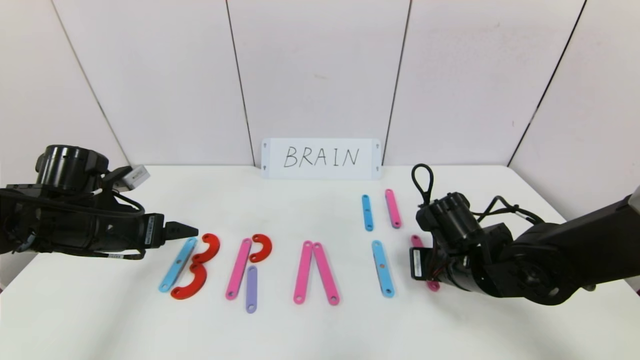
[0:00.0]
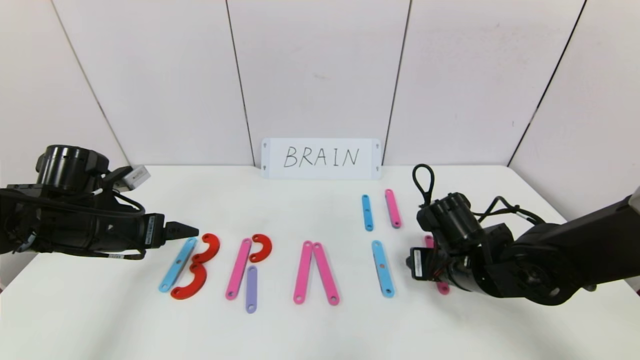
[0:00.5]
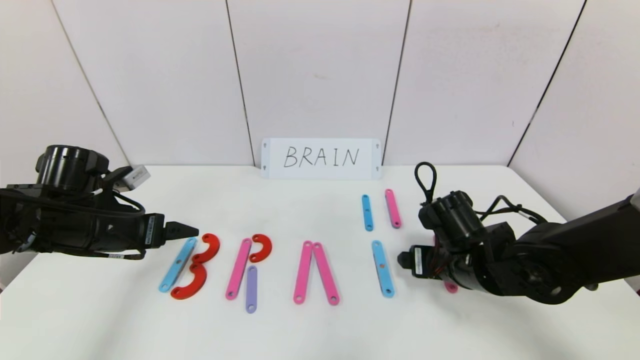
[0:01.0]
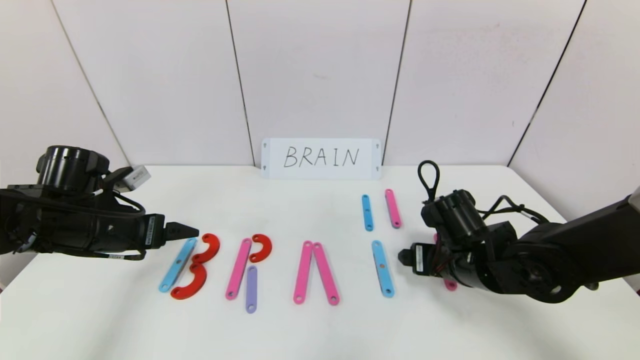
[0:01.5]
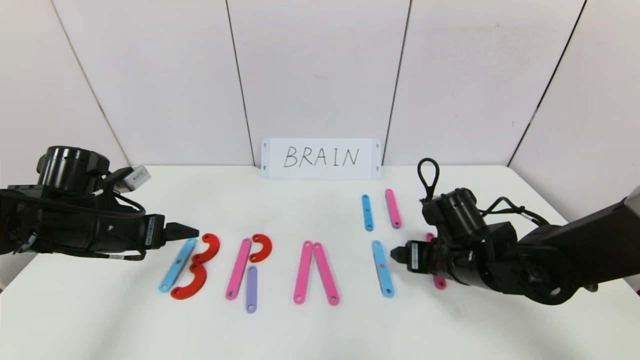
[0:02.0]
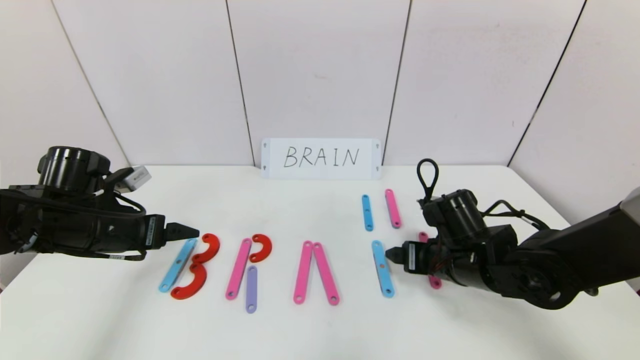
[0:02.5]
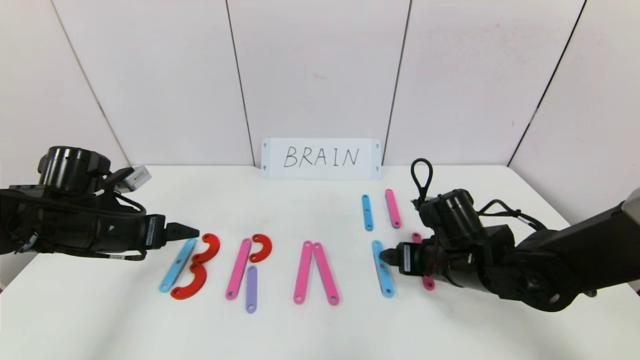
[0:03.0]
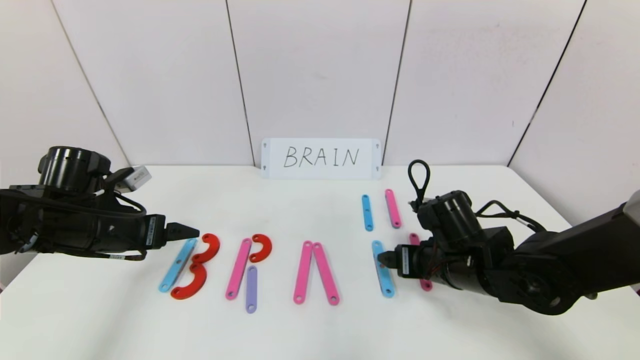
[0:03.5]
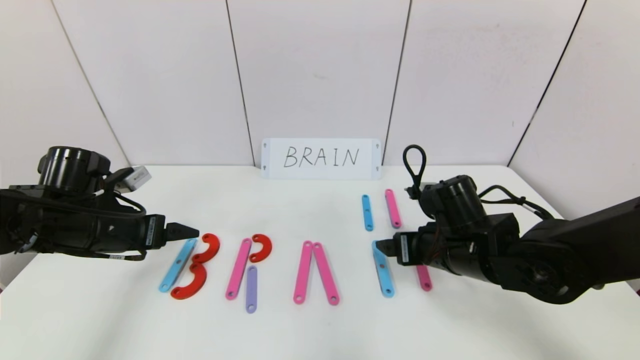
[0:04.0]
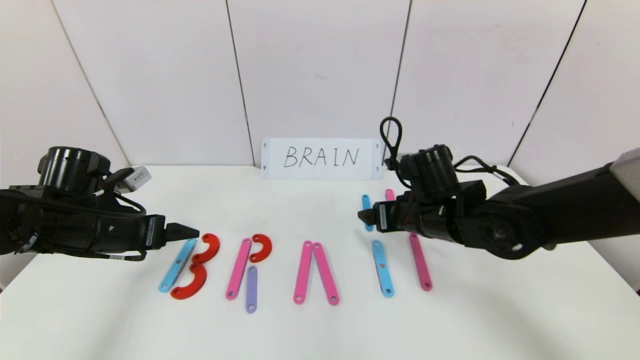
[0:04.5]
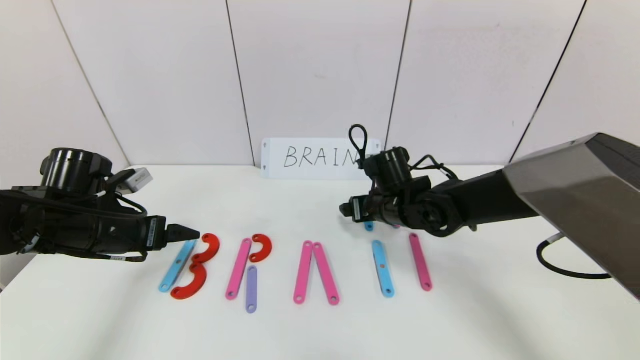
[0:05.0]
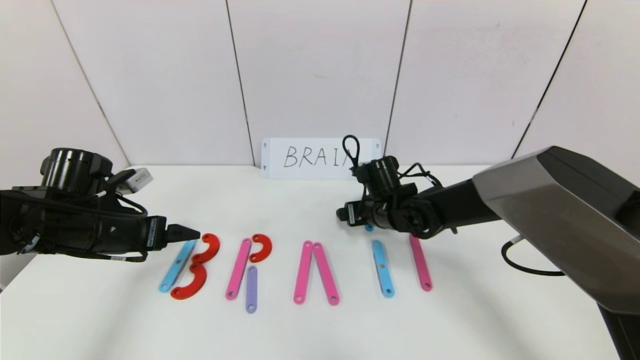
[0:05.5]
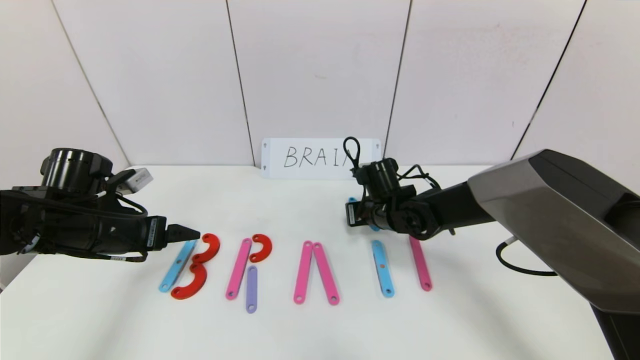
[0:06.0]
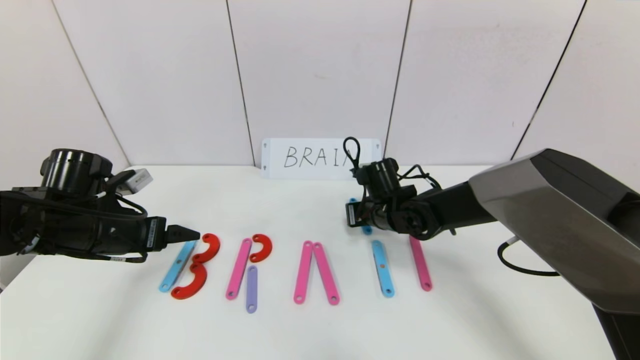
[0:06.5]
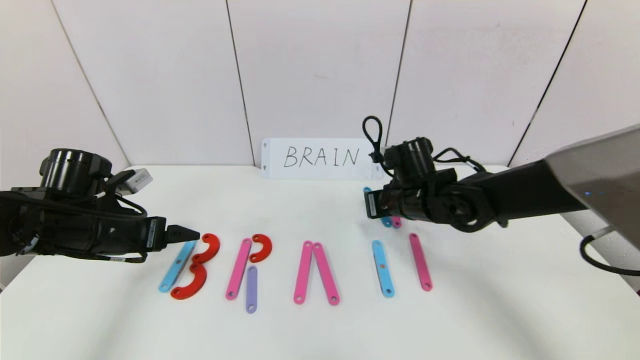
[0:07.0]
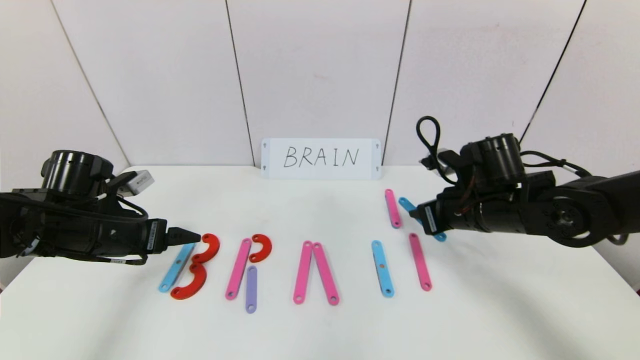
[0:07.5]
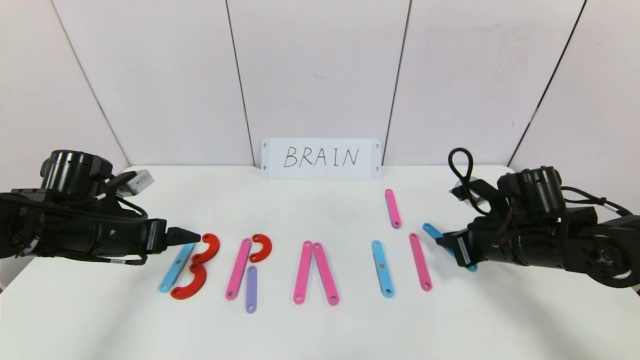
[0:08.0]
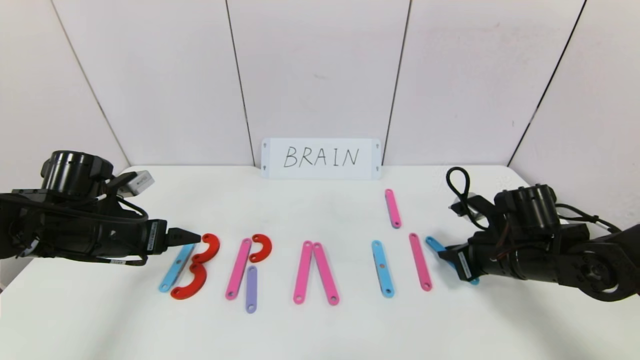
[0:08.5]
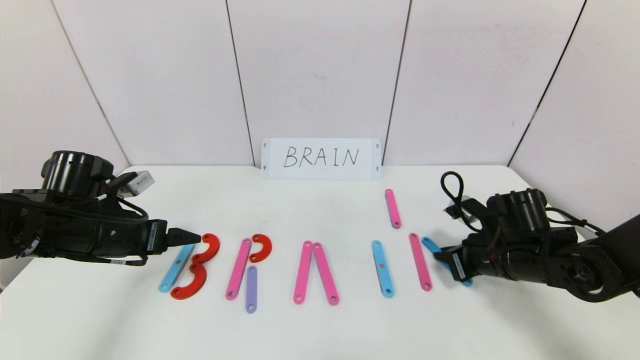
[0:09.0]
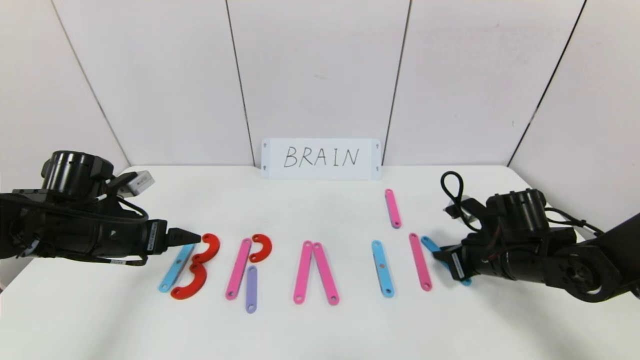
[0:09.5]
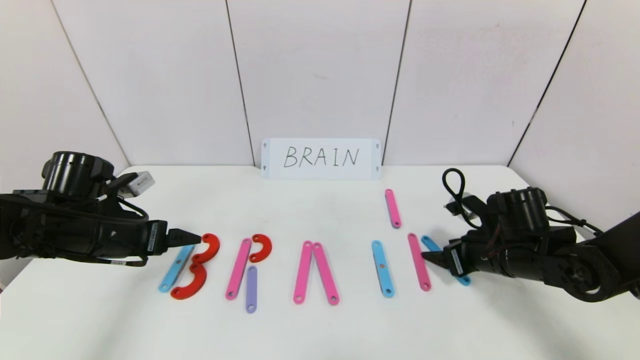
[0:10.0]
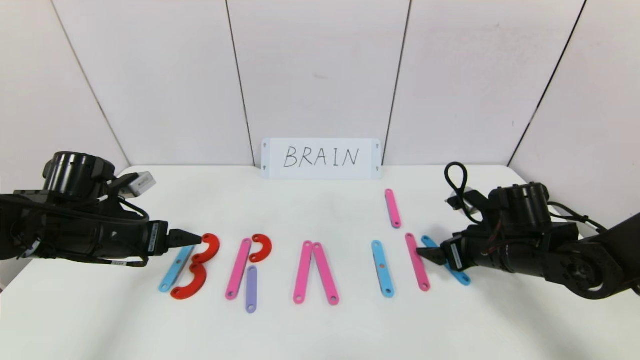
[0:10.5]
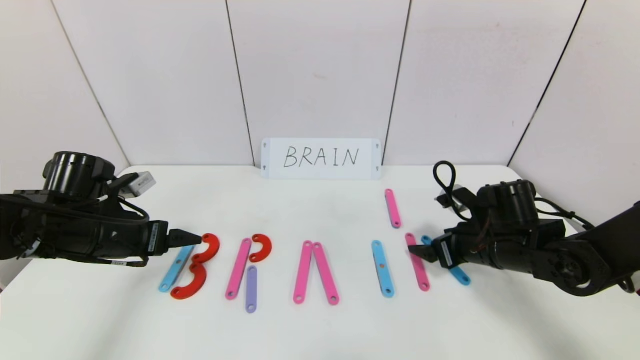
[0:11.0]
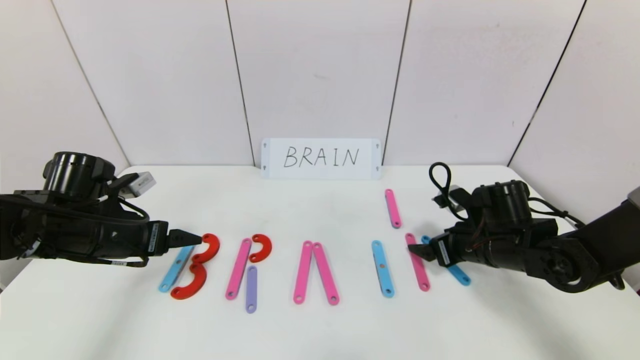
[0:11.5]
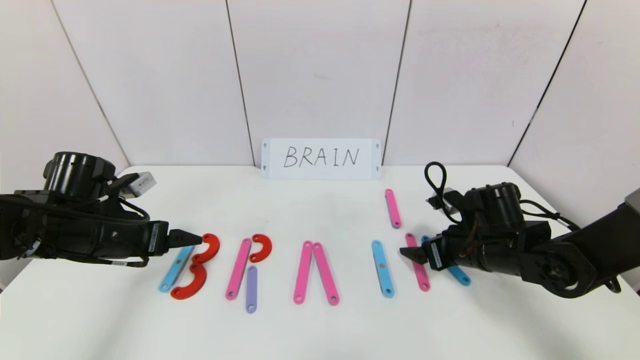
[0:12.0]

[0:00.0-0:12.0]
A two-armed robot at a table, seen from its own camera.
Task of the whole recording: rearrange the word baai as brain.
0.0 to 2.0 s: The right gripper opens.
2.0 to 4.0 s: The grippers stay close to where they were, moving slightly.
4.0 to 6.0 s: The right gripper heads forward and to the left, covering roughly 15 cm, and closes.
6.0 to 8.0 s: The right gripper goes approximately 20 cm to the right and backward.
8.0 to 10.0 s: The right gripper opens.
10.0 to 12.0 s: The grippers make only small movements.

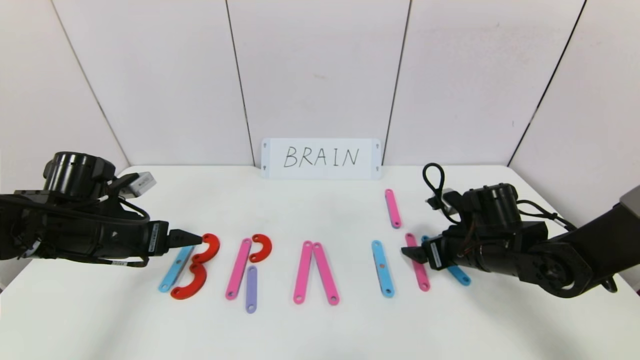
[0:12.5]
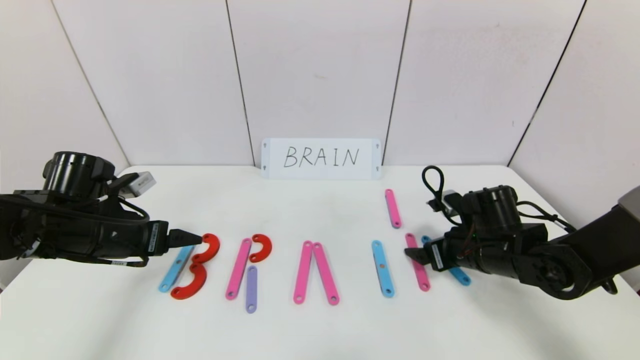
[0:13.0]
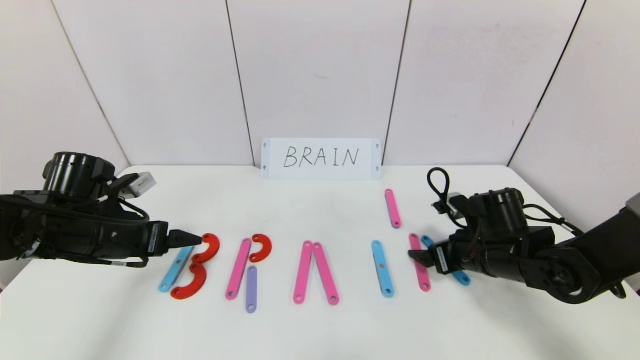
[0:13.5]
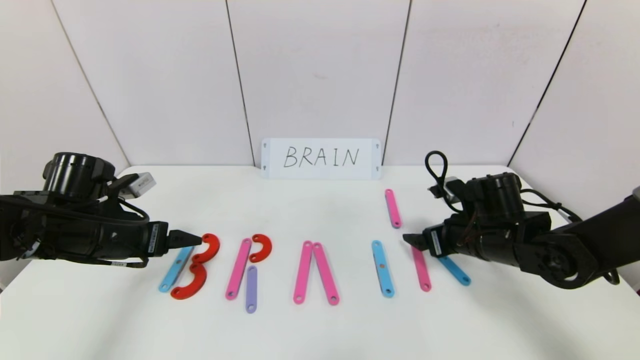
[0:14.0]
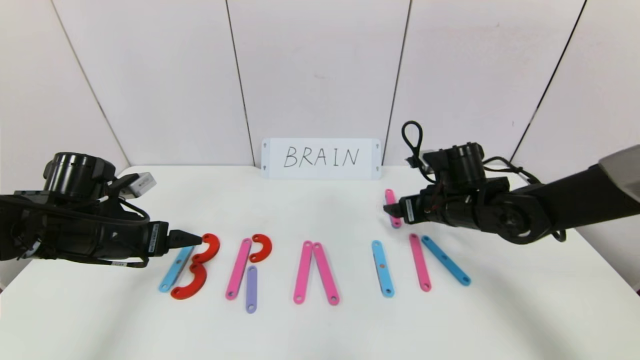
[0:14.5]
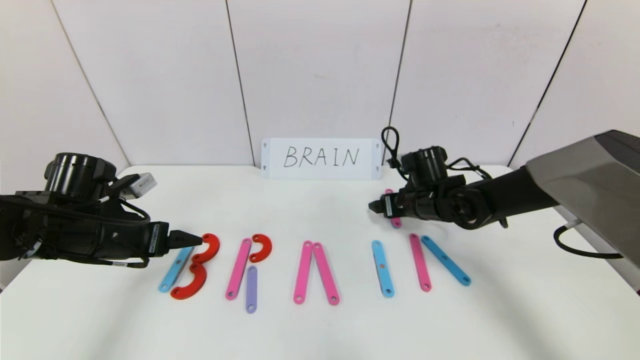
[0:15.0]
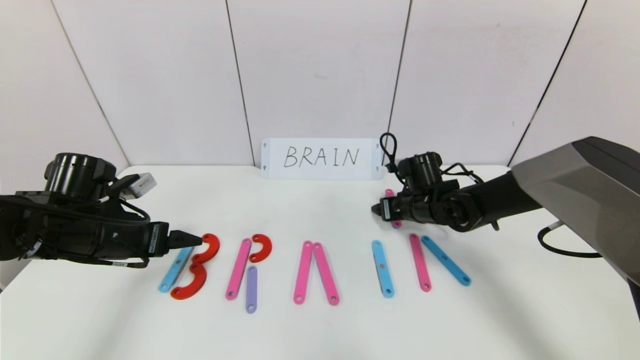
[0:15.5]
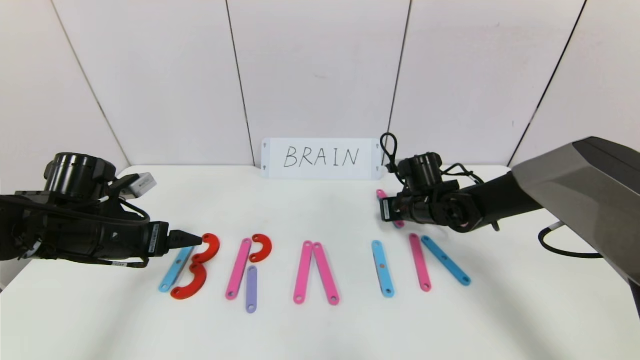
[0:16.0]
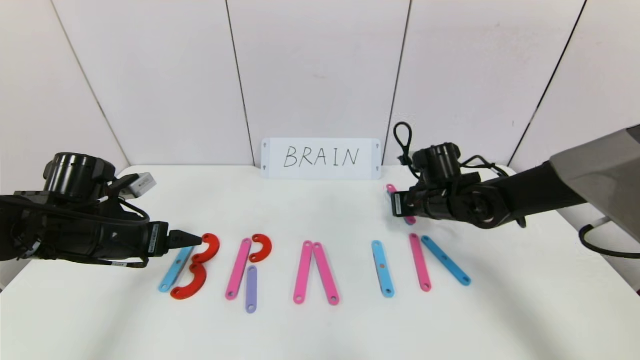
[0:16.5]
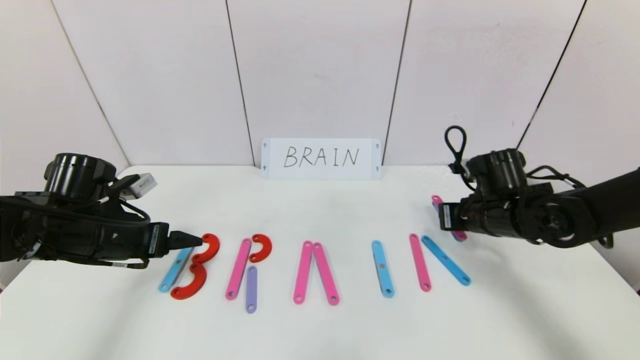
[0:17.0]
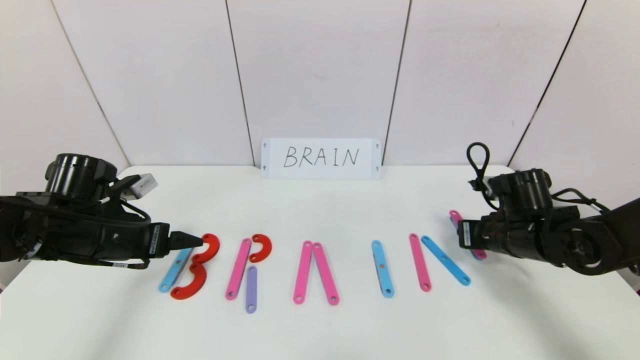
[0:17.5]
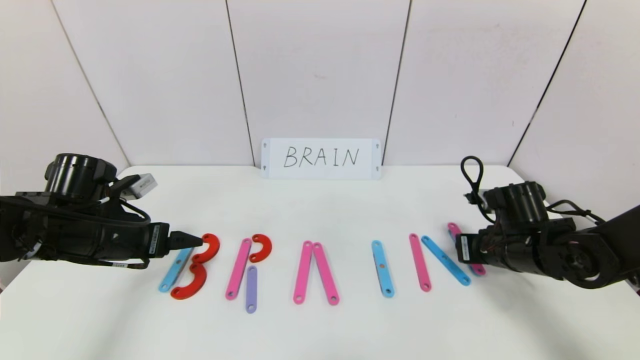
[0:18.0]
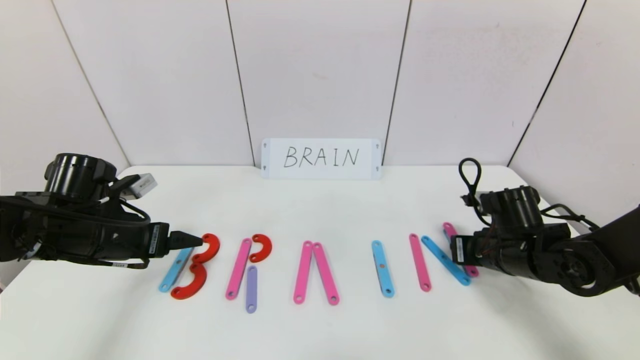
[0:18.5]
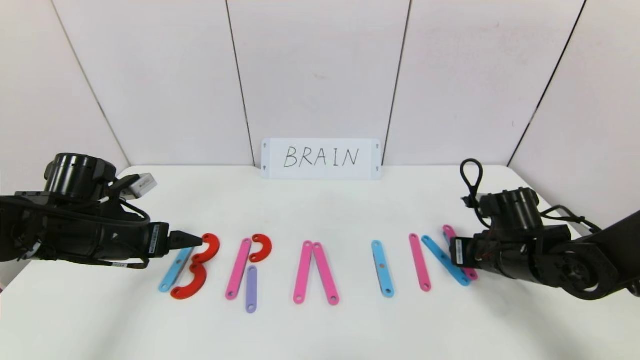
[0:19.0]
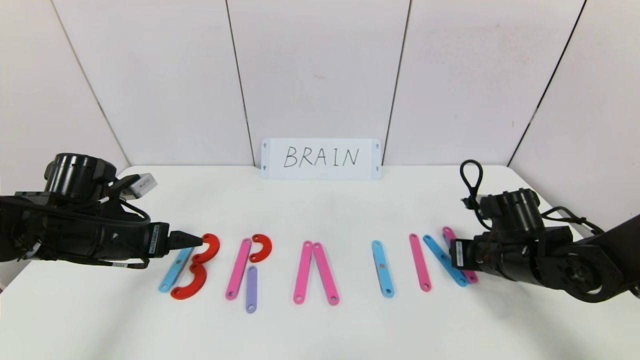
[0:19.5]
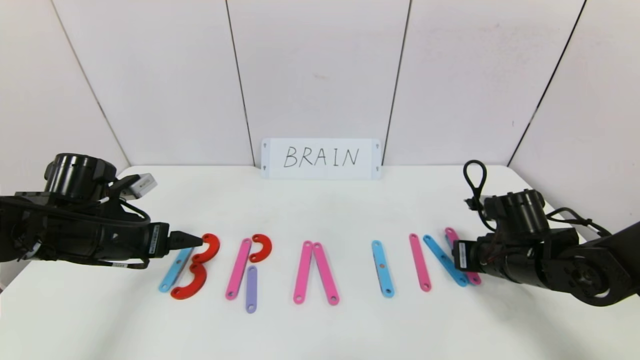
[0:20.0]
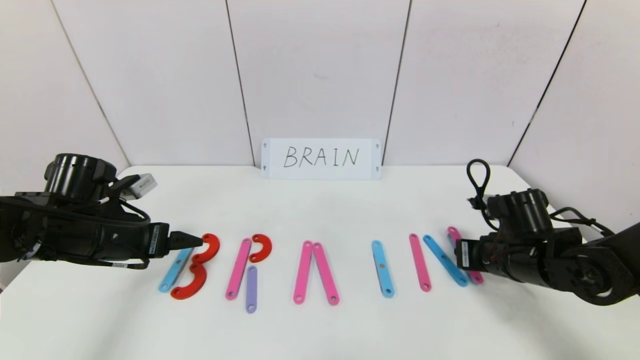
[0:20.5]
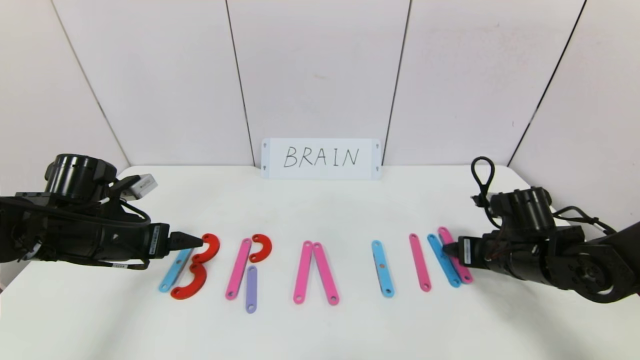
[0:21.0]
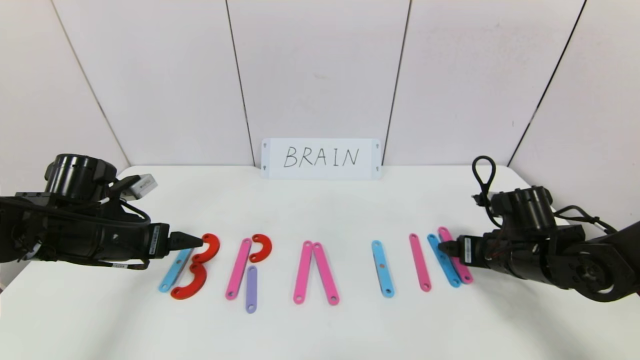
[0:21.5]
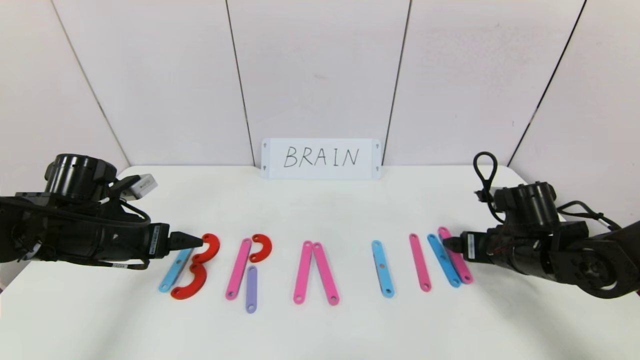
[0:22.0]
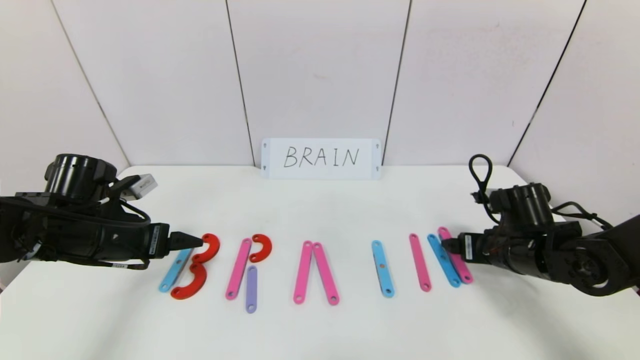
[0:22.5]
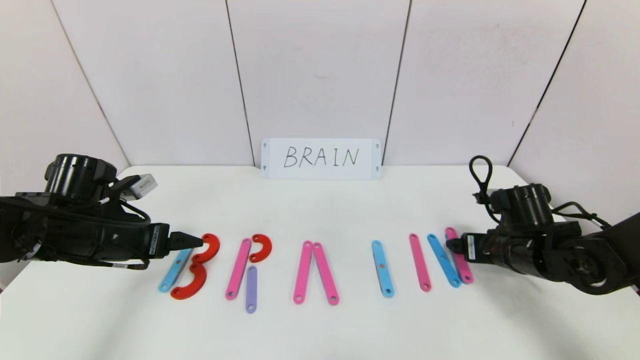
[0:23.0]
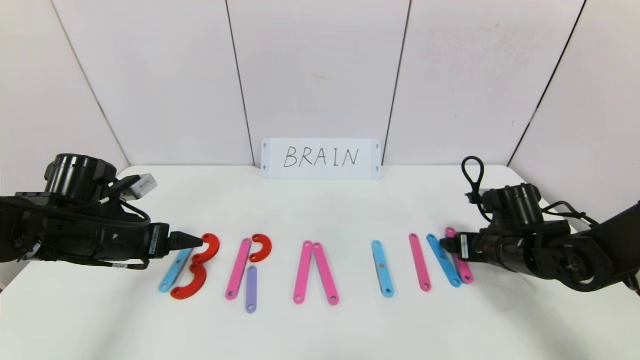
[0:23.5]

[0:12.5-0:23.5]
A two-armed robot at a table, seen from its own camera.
Task of the whole recording: rearrange the word baai as brain.
12.5 to 14.5 s: The right gripper heads forward, covering some 5 cm.
14.5 to 16.0 s: The right gripper moves some 5 cm, and closes its fingers.
16.0 to 18.0 s: The right gripper moves backward and to the right, some 15 cm.
18.0 to 20.0 s: There are only small adjustments of the grippers.
20.0 to 21.5 s: The right gripper opens up.
21.5 to 23.5 s: There are only small adjustments of the grippers.
